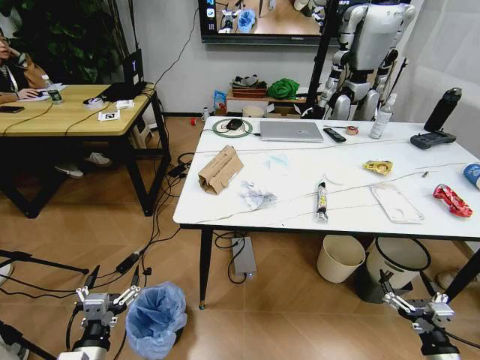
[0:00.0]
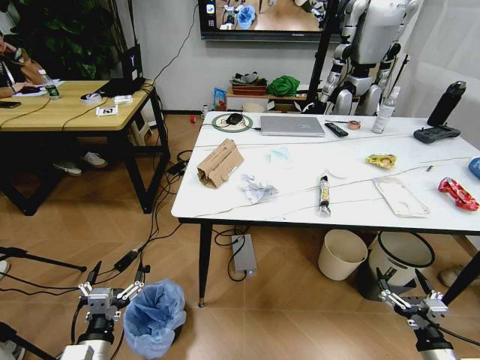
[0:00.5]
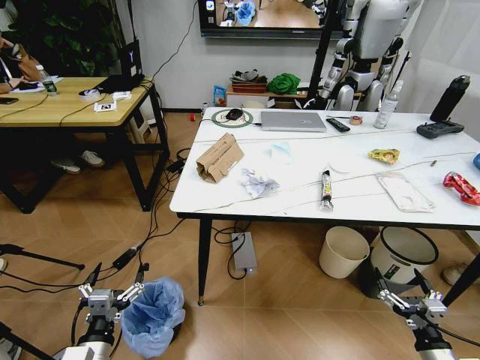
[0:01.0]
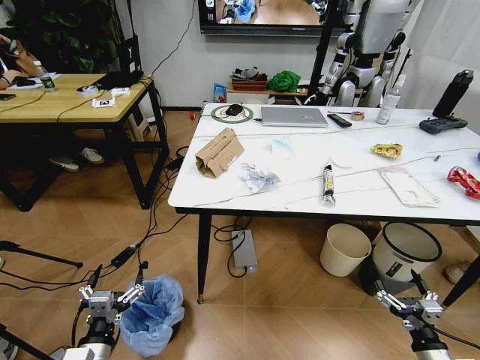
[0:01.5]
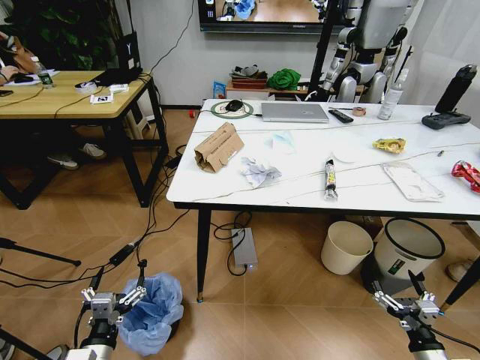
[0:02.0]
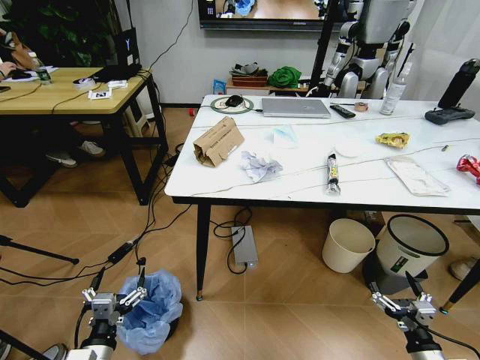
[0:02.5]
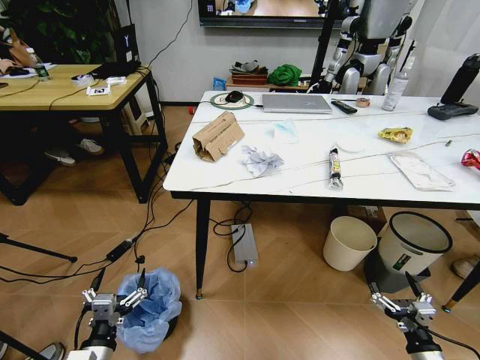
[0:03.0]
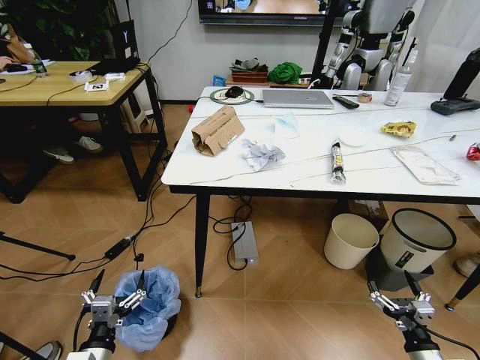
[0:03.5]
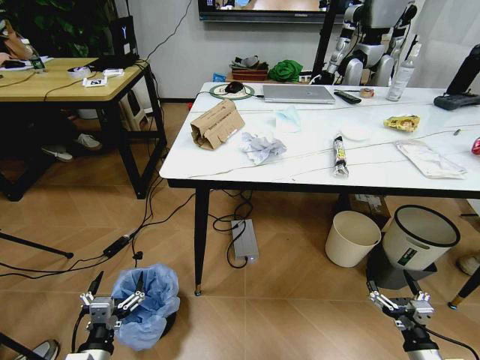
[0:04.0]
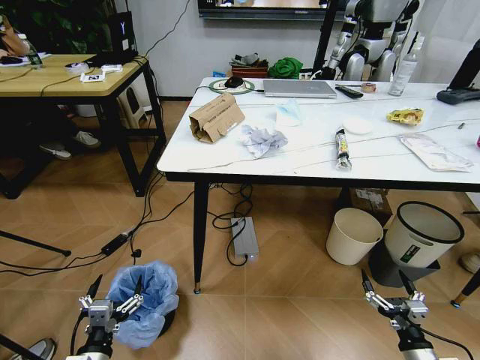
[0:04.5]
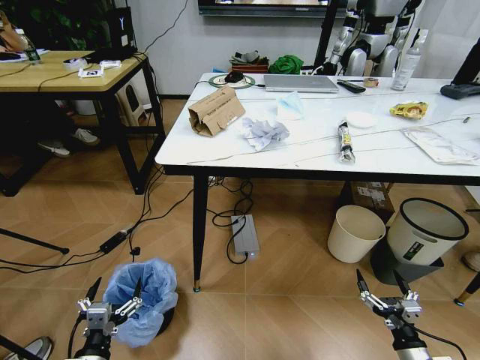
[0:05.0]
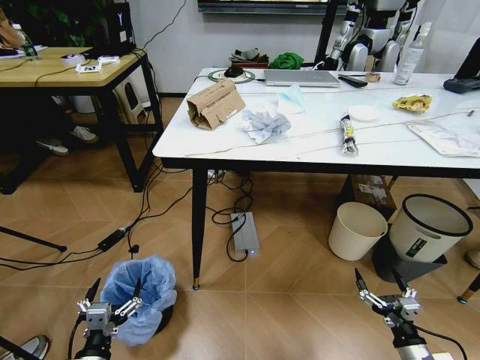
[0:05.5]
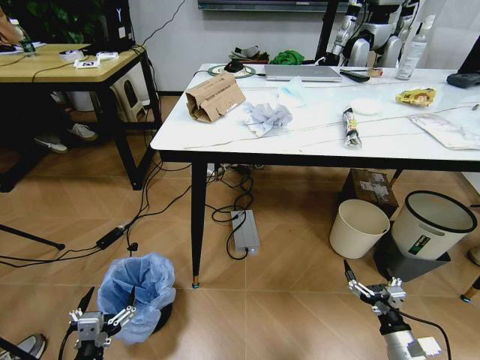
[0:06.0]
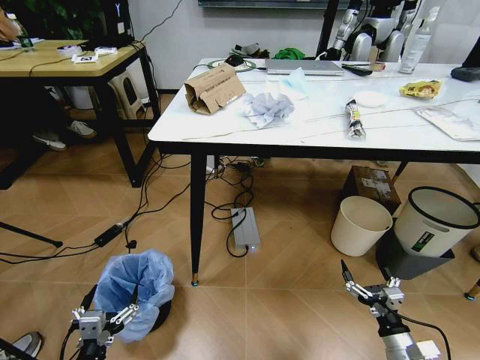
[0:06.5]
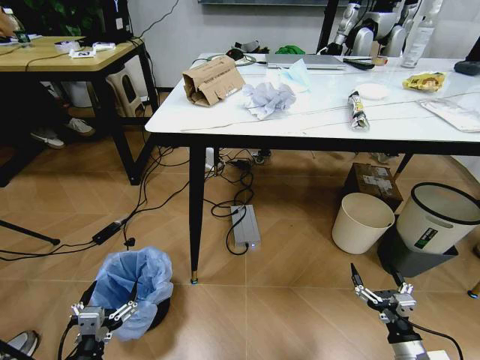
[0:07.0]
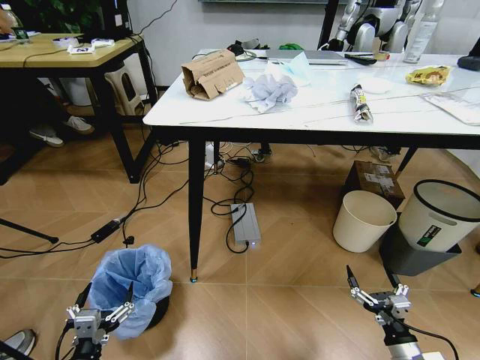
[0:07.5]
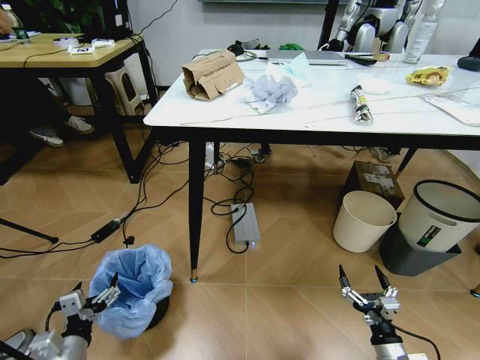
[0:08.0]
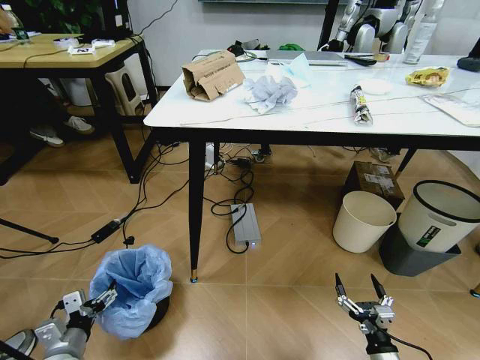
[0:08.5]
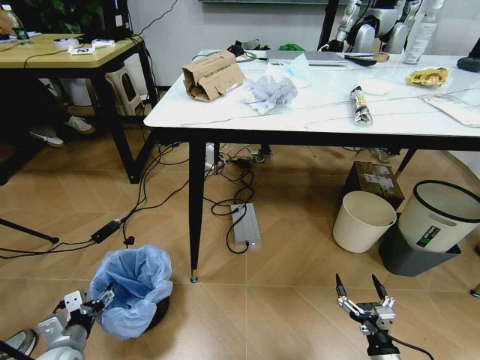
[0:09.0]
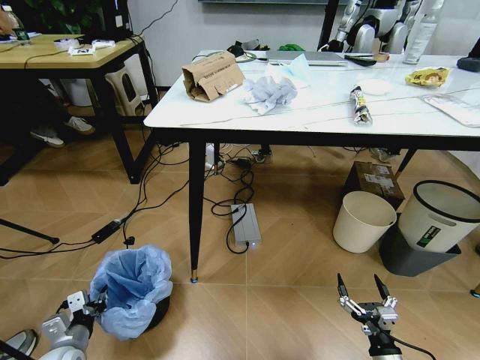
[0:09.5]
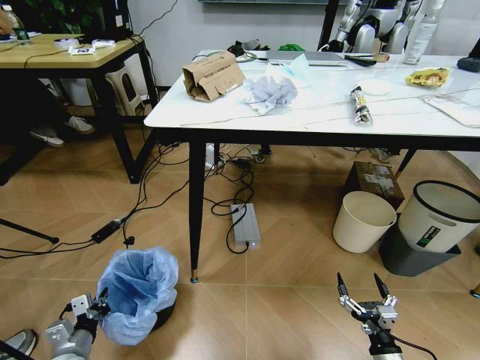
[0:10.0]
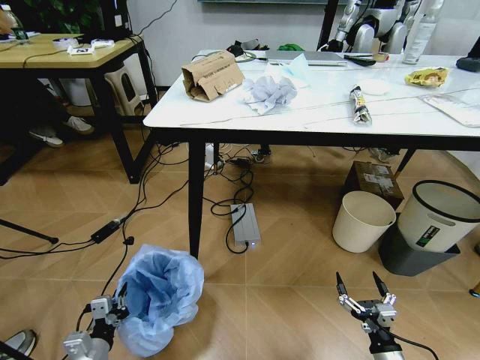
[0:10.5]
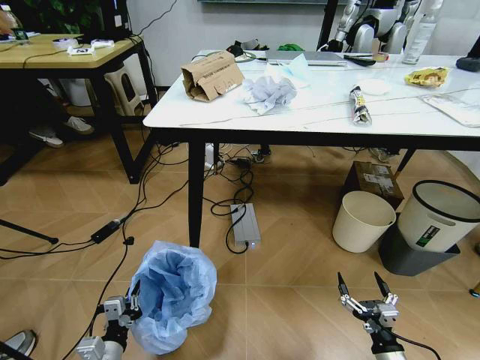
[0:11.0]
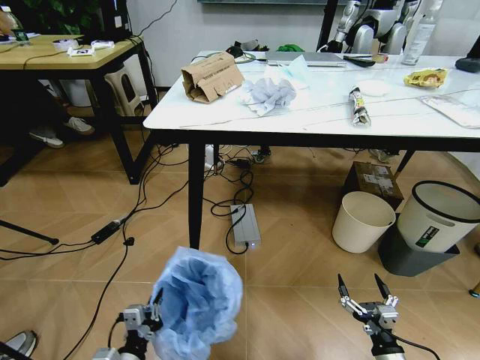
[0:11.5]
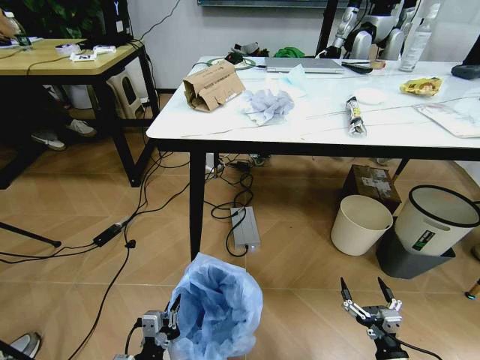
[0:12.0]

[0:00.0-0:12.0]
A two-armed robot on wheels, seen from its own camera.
Task of the whole recording: Pick up the trash bin and place the trash from the table into it.
0:06.0 to 0:08.0: The left gripper moves forward, approximately 5 cm.
0:08.0 to 0:10.0: The left gripper travels downward by some 5 cm, and closes its fingers.
0:10.0 to 0:12.0: The left gripper travels to the right and backward by some 20 cm.

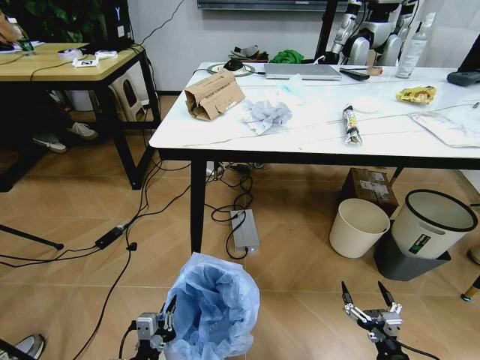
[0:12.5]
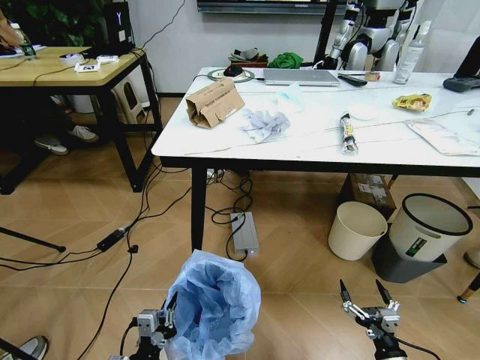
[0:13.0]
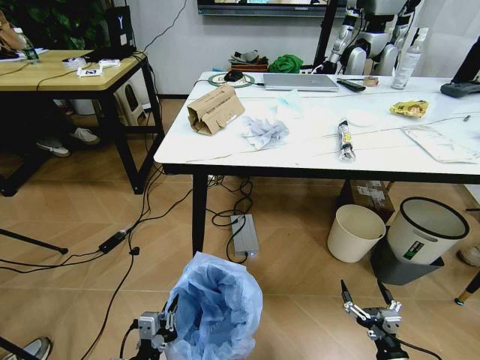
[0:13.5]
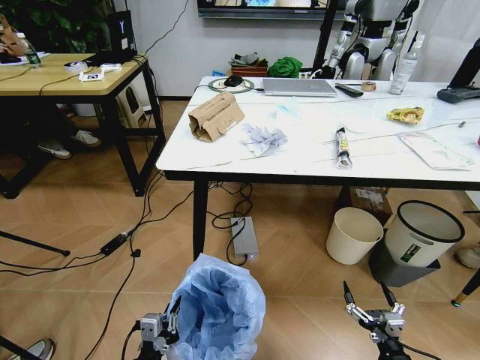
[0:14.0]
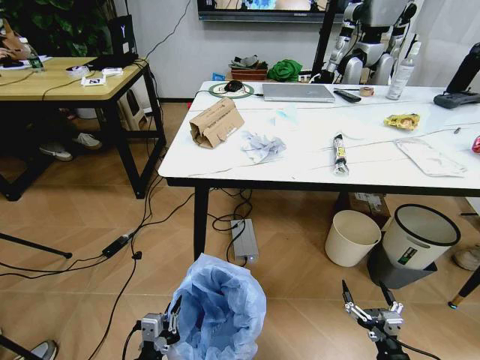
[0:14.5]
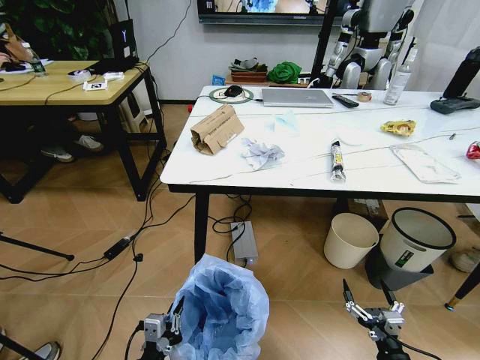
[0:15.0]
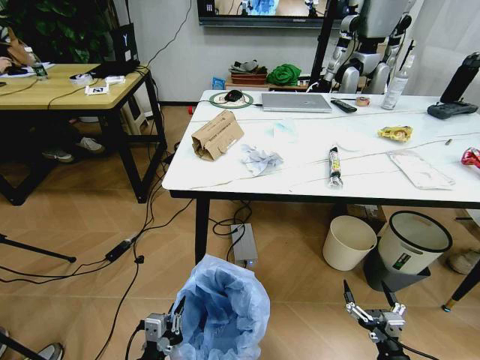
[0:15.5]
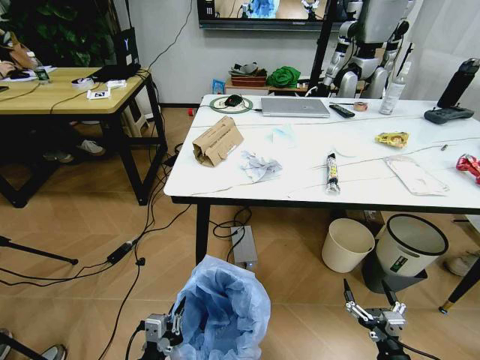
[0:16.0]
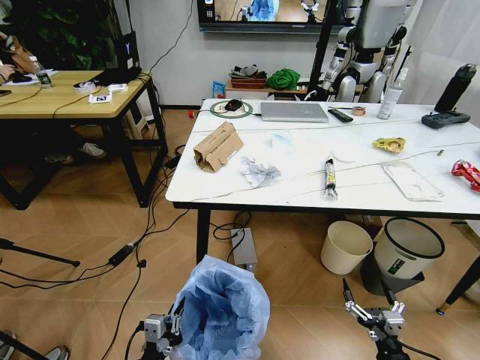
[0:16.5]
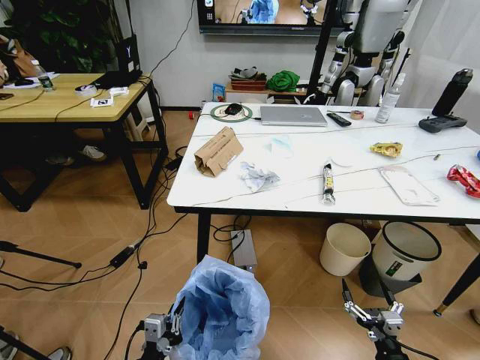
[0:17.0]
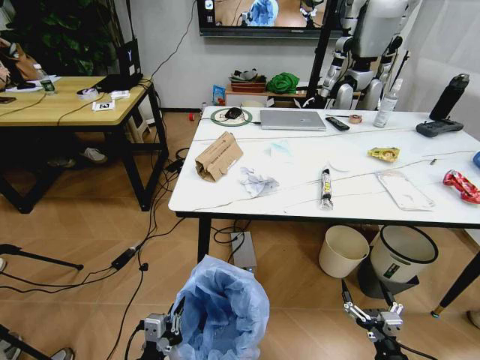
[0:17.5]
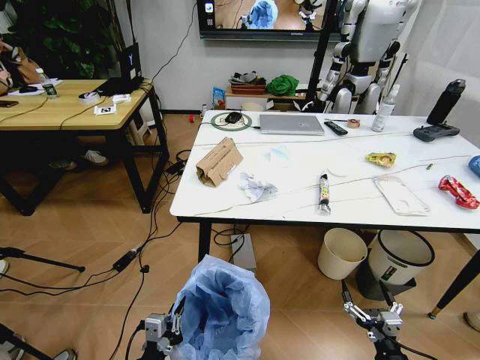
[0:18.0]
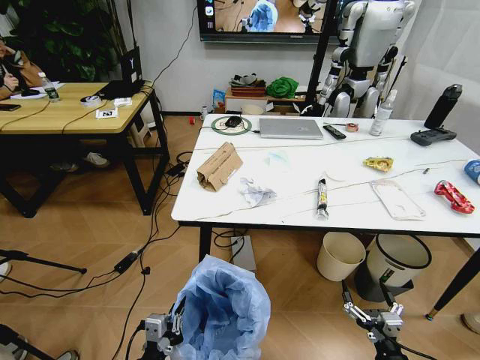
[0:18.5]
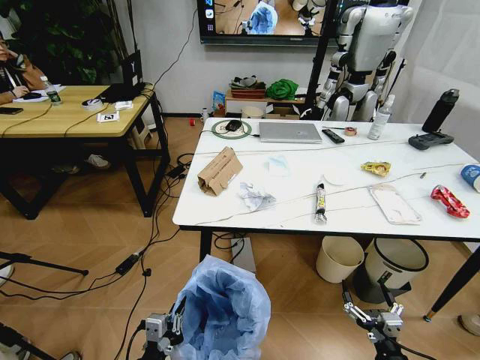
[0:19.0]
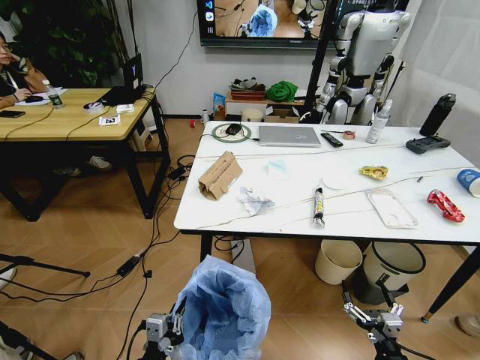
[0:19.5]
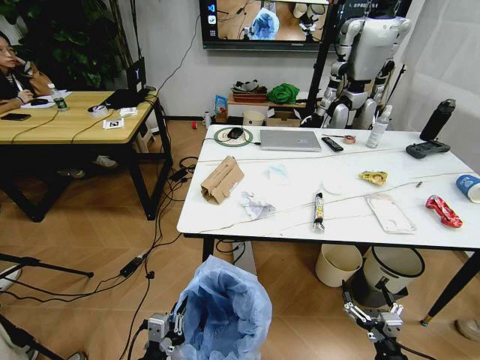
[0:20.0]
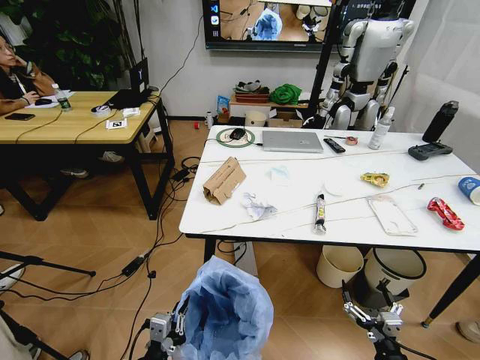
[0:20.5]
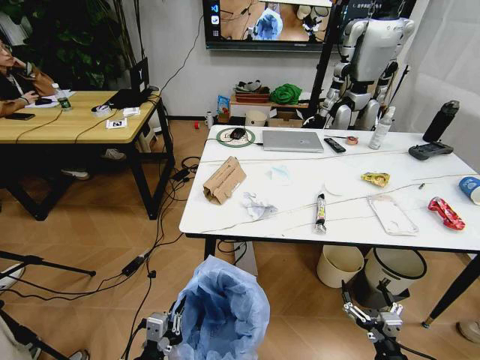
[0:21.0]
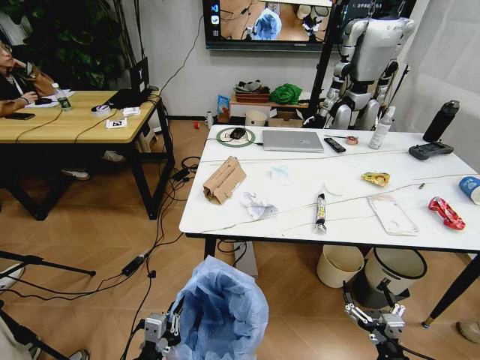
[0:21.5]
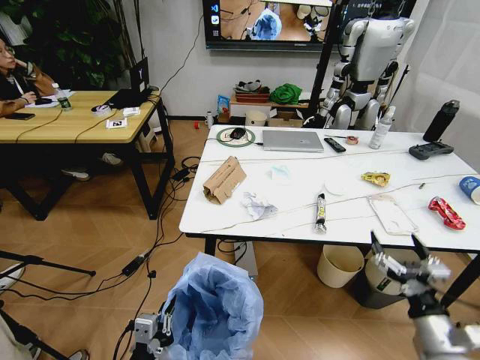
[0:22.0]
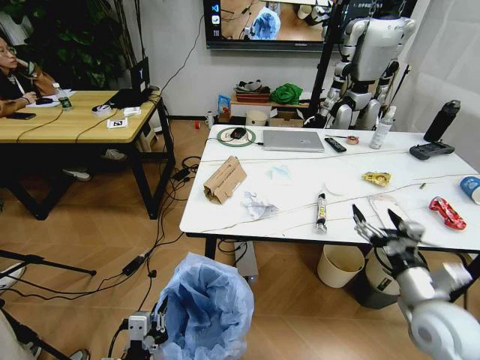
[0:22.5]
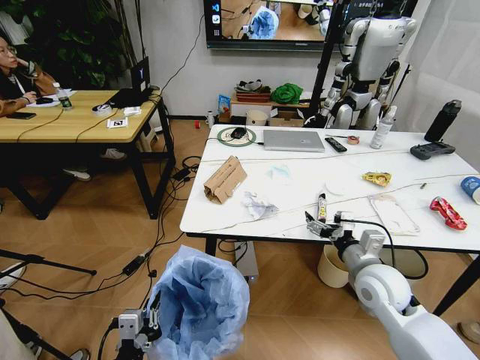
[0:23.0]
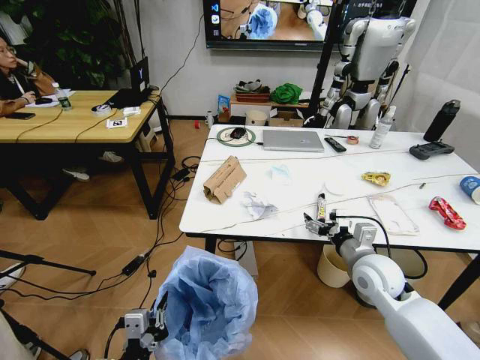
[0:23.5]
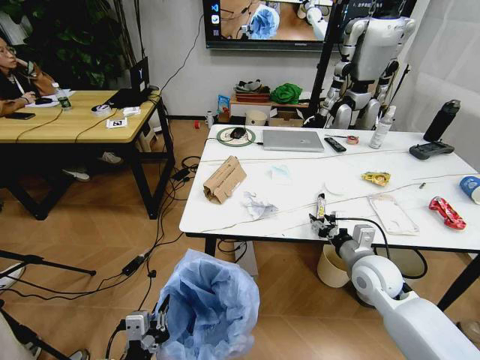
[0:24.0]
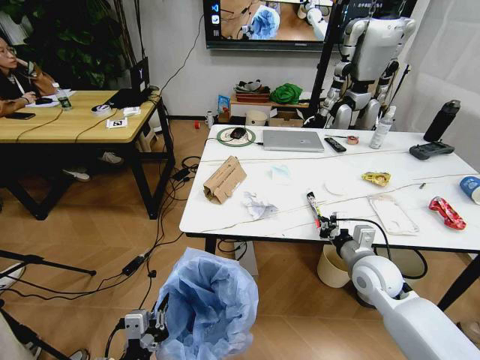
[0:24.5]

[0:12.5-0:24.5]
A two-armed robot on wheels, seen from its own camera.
Task of the whole recording: Pick up the trash bin and place the trash from the table into it.
0:20.5 to 0:22.5: The right gripper travels upward and forward by roughly 25 cm.
0:22.5 to 0:24.5: The right gripper goes roughly 15 cm forward and to the left, and closes its fingers.

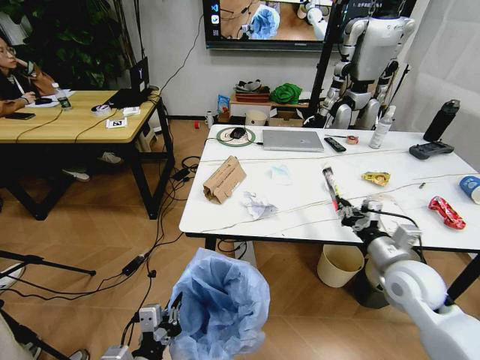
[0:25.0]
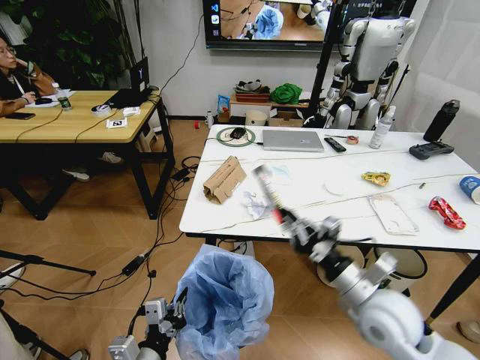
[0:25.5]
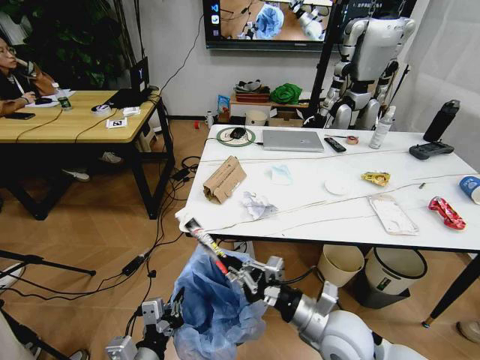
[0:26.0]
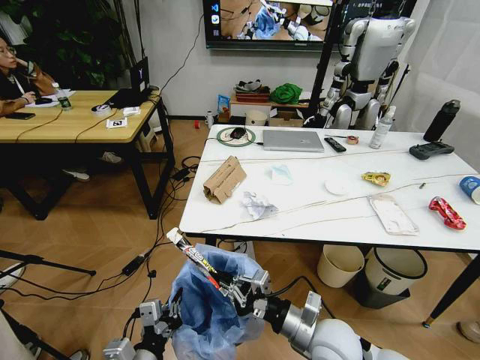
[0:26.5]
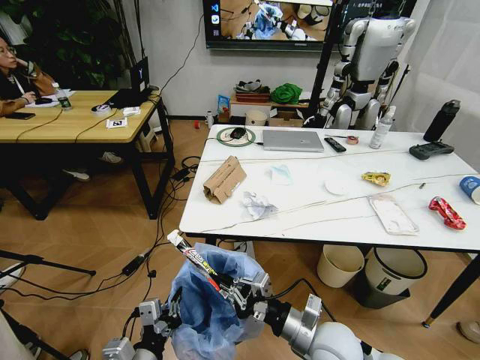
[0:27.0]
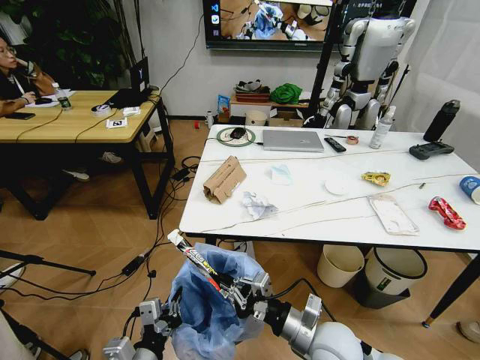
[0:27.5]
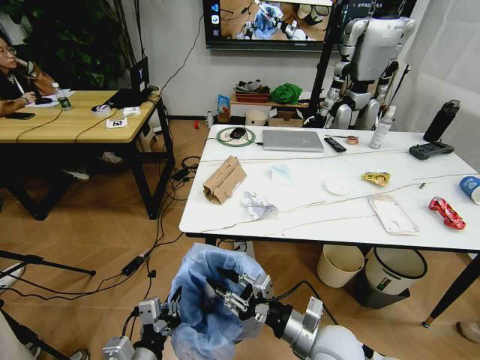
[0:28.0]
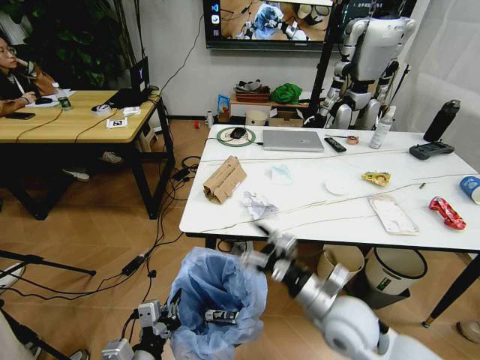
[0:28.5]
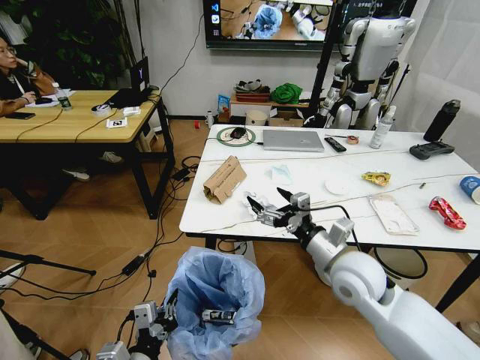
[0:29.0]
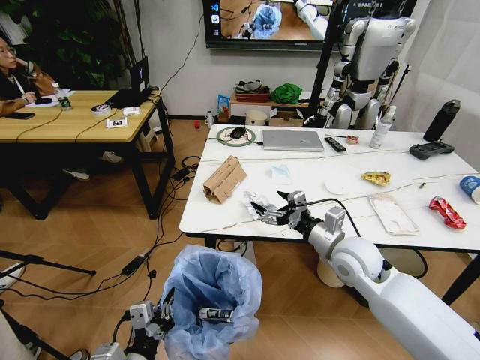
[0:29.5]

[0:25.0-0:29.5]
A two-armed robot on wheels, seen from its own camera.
Task of the whole recording: Pick up the trash bin and place the trash from the table into it.
0:25.0 to 0:27.0: The right gripper shifts about 20 cm to the left and backward.
0:27.0 to 0:29.5: The right gripper heads forward, upward and to the right, covering approximately 20 cm, and opens.
